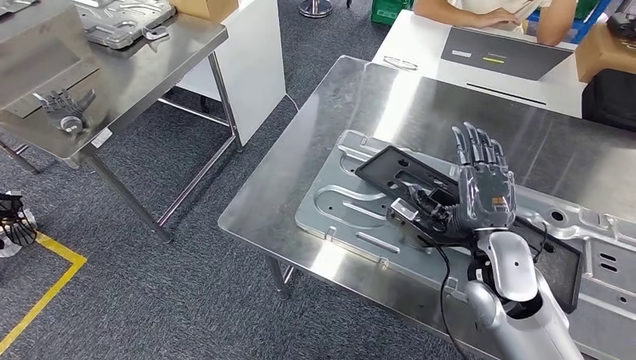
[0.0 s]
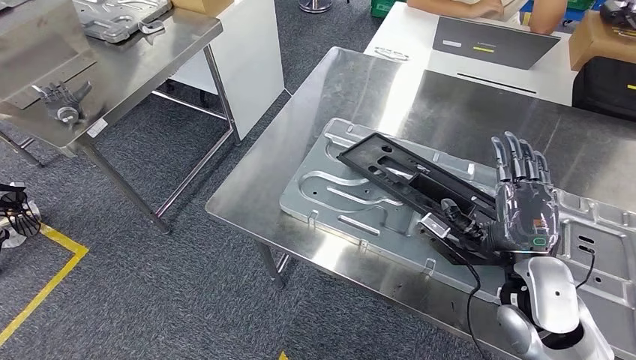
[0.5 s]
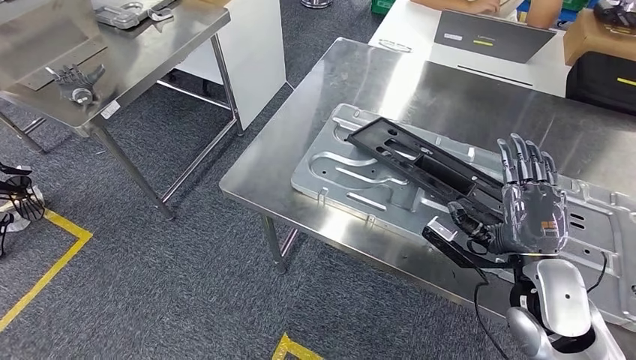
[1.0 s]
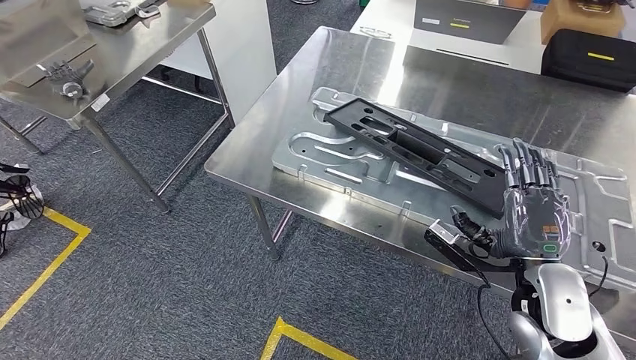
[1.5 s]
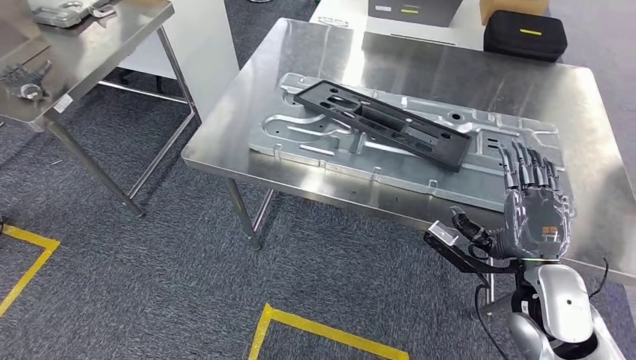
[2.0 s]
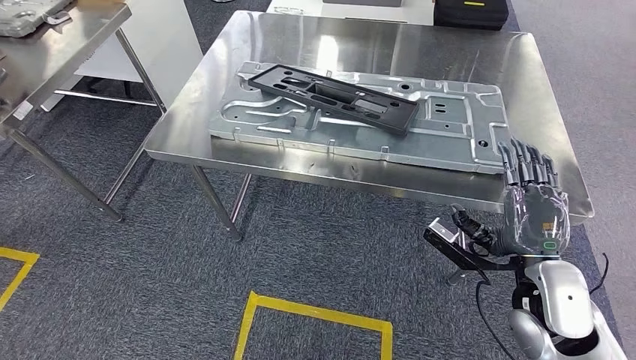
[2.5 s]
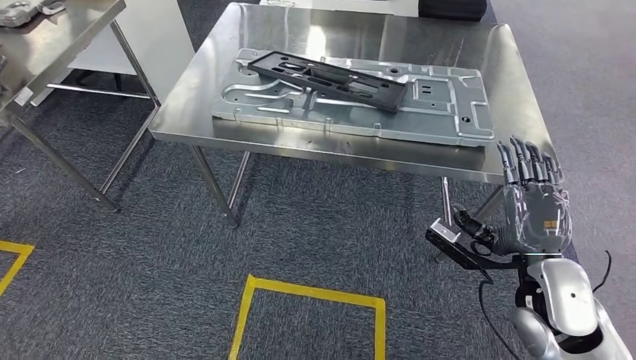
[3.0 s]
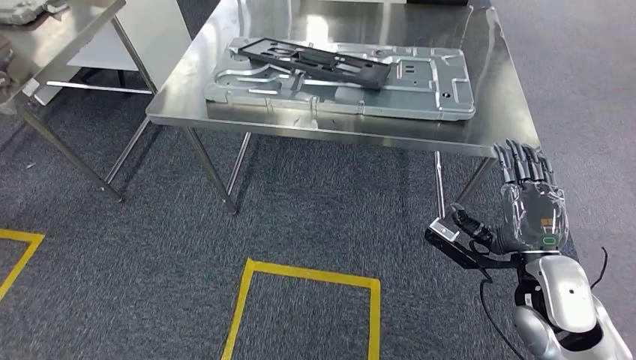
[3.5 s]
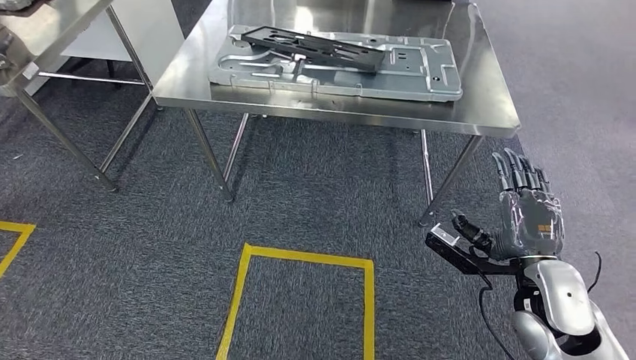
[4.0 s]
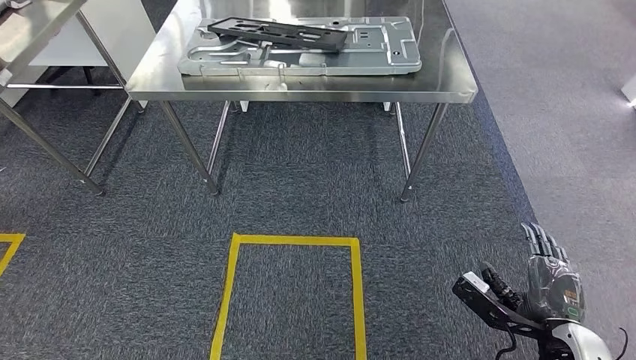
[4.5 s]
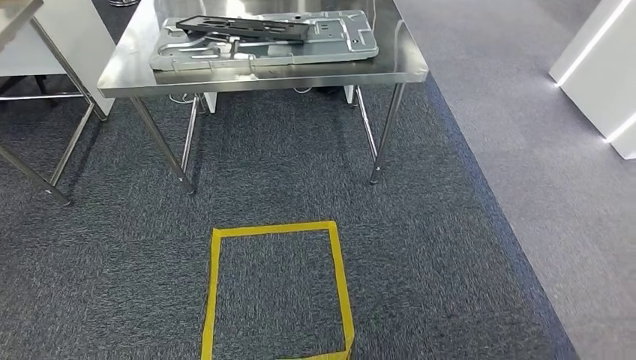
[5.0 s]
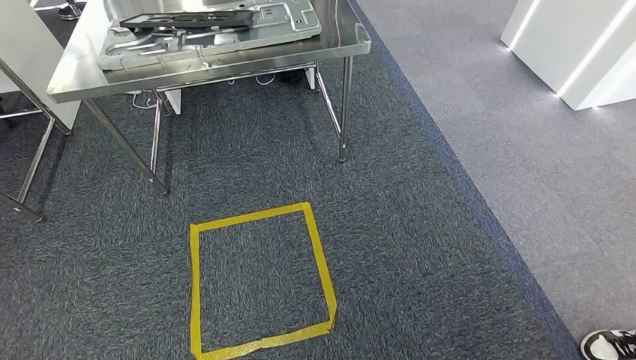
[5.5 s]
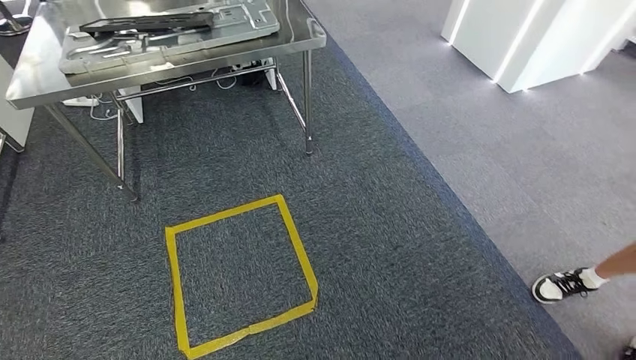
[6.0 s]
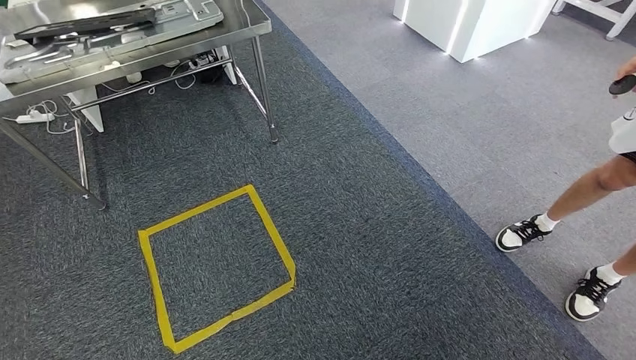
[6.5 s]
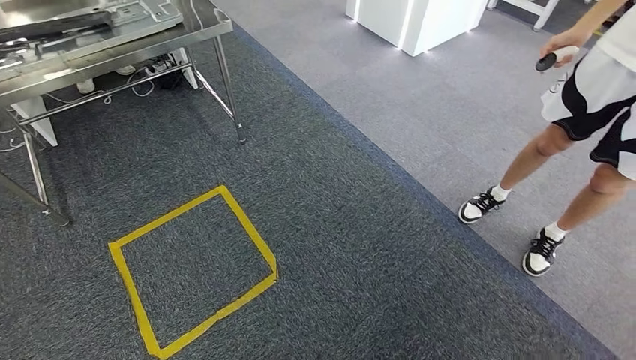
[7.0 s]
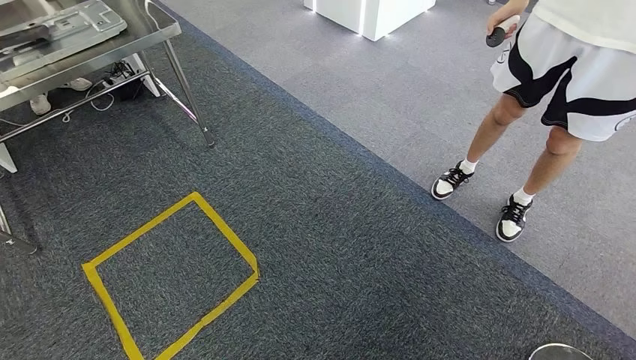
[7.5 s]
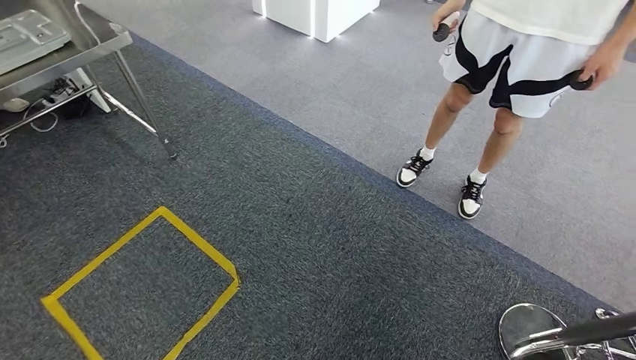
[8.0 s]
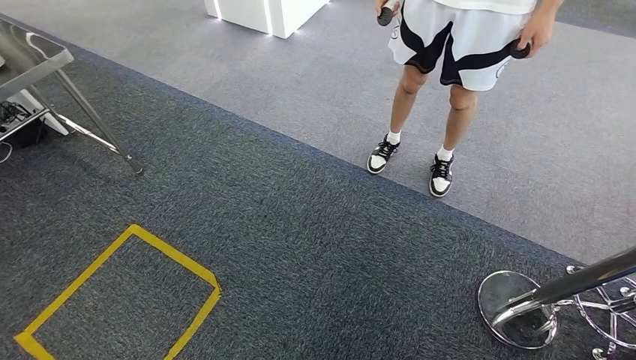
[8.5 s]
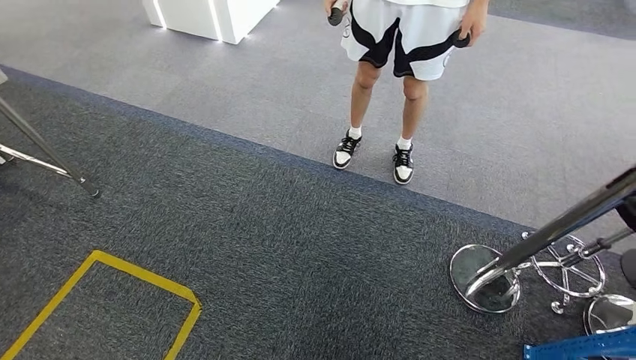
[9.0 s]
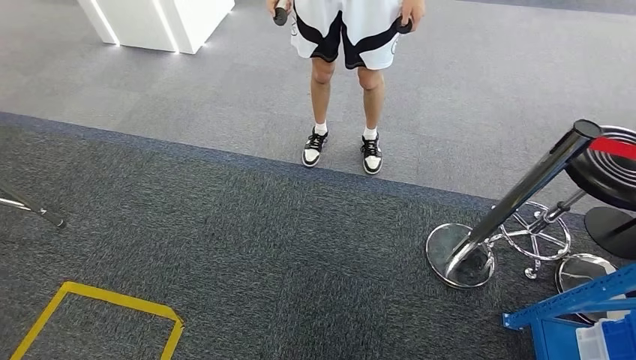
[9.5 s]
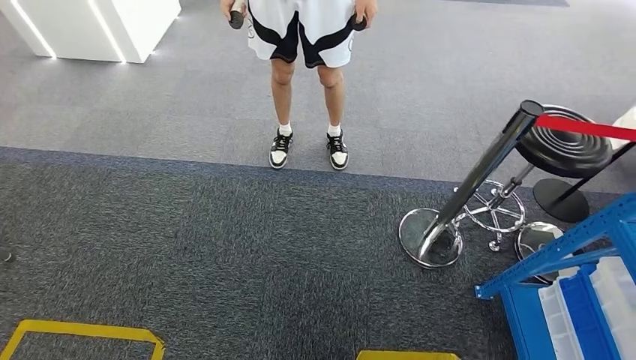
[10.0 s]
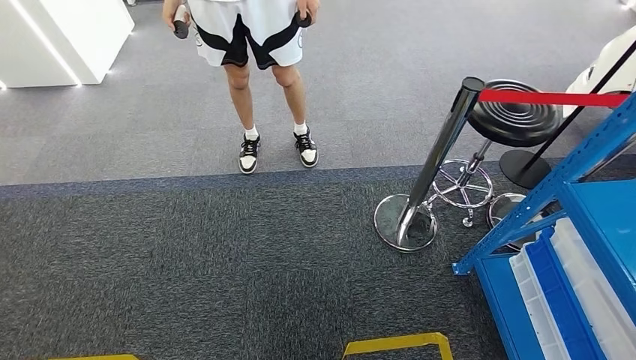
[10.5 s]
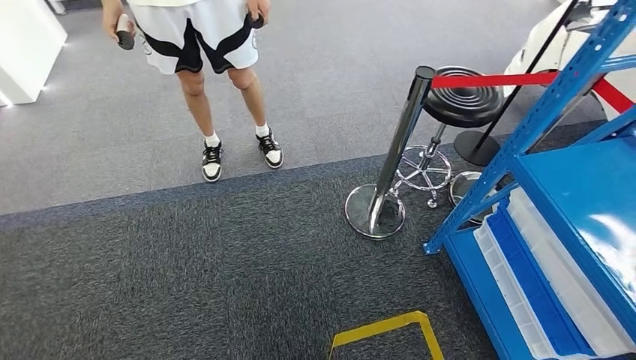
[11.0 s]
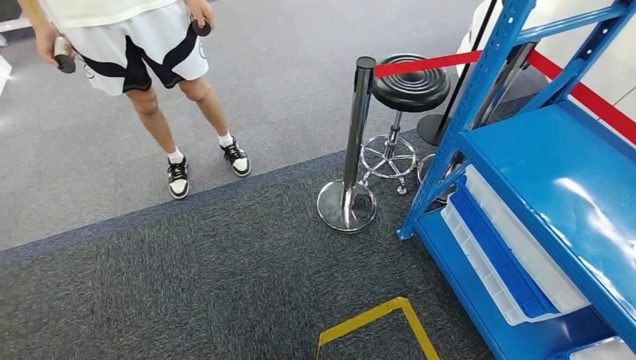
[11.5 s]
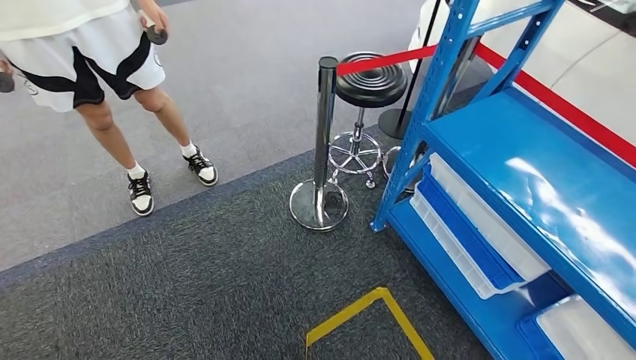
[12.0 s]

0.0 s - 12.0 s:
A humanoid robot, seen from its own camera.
Step, 0.0 s - 5.0 s: Insert the large material into the corresponding slot on the workbench.

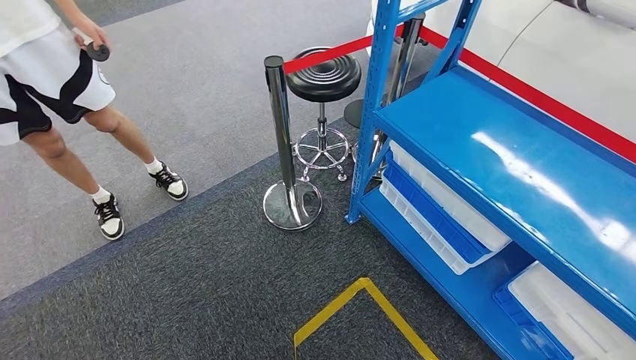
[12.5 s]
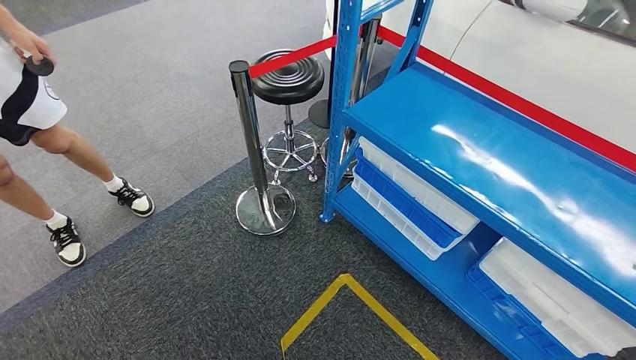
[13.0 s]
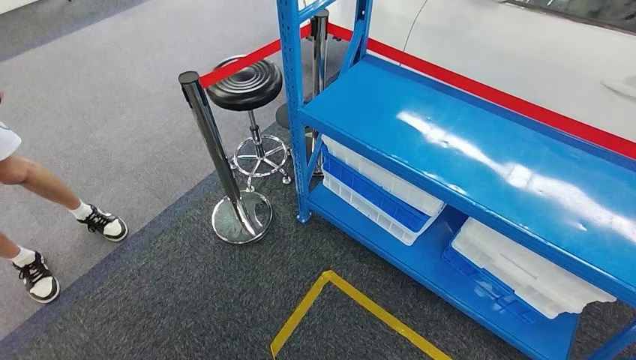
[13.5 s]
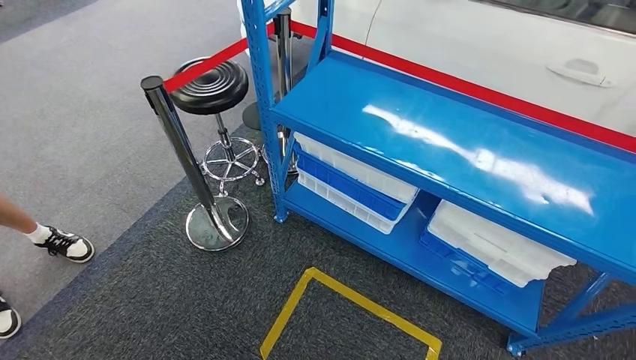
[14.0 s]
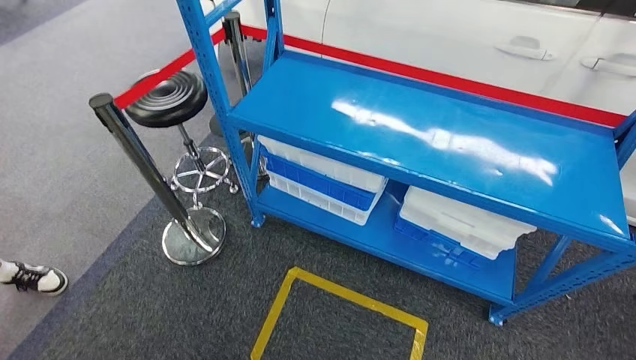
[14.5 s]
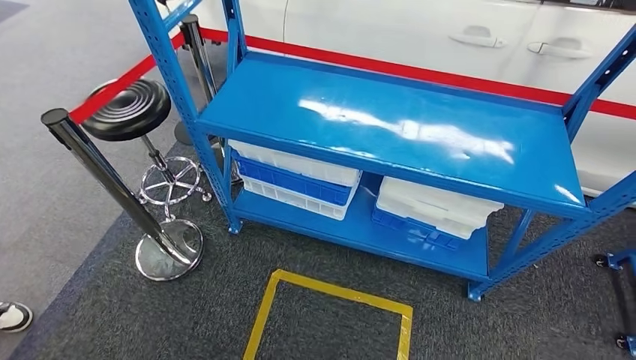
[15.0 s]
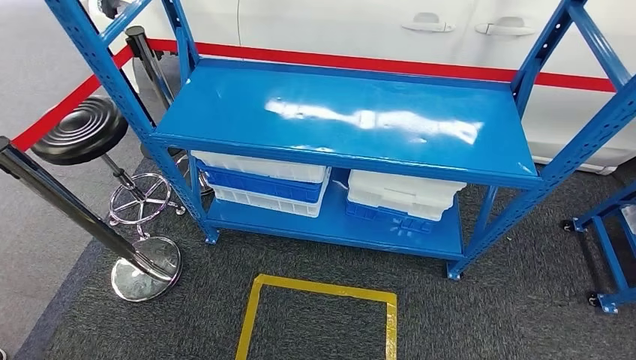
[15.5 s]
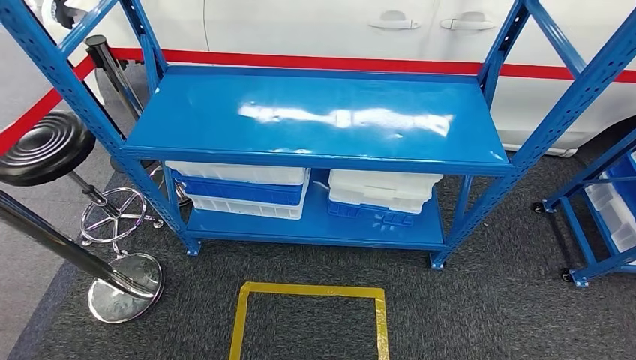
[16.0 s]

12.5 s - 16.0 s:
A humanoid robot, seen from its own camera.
Step, 12.5 s - 16.0 s: Return to the initial position at the shelf.
